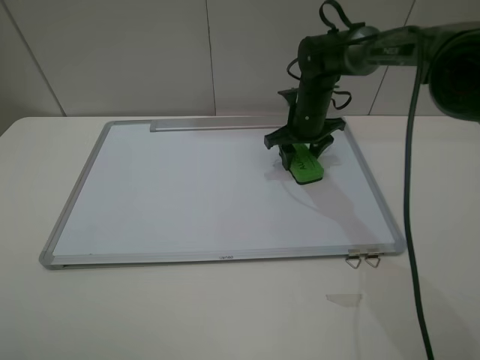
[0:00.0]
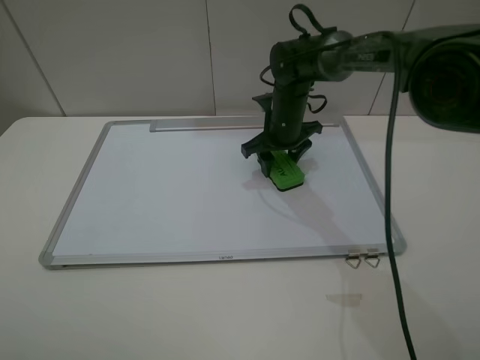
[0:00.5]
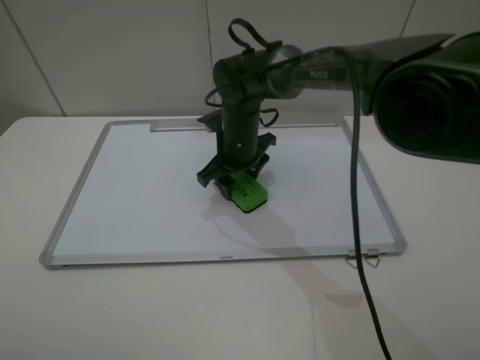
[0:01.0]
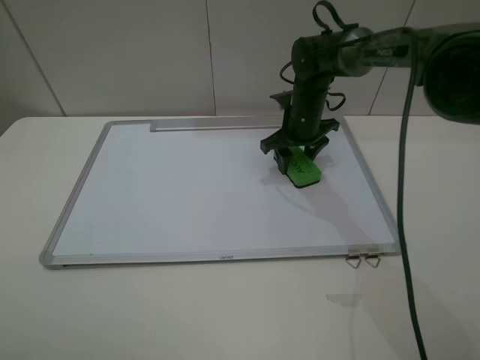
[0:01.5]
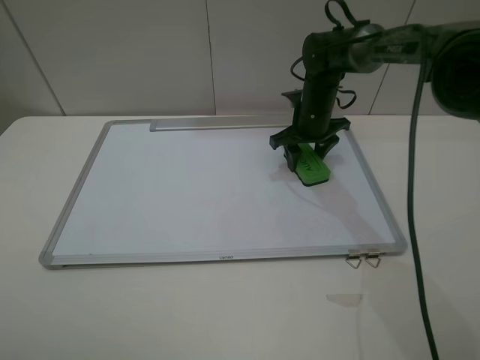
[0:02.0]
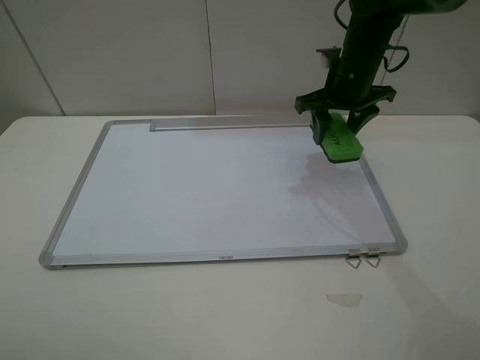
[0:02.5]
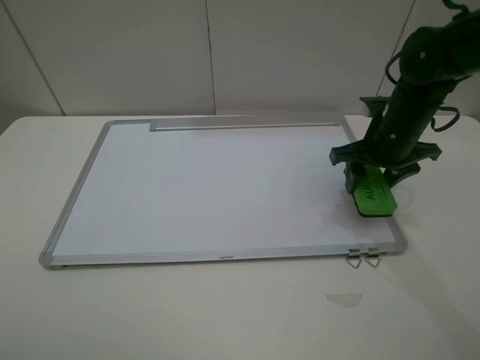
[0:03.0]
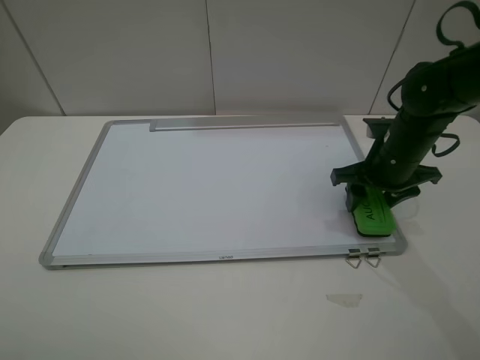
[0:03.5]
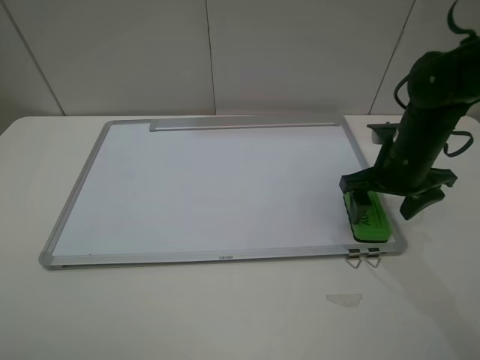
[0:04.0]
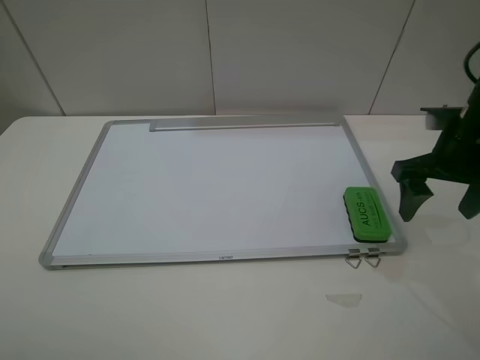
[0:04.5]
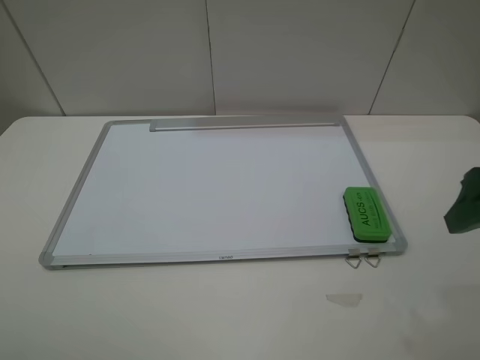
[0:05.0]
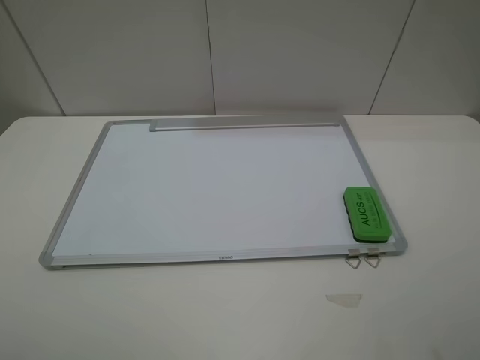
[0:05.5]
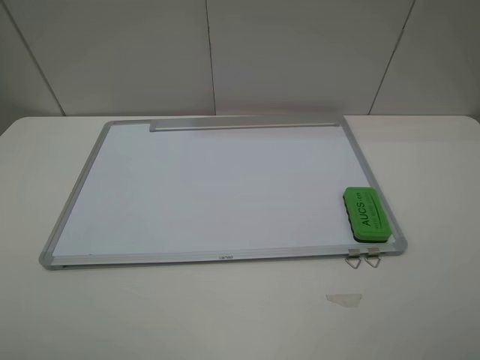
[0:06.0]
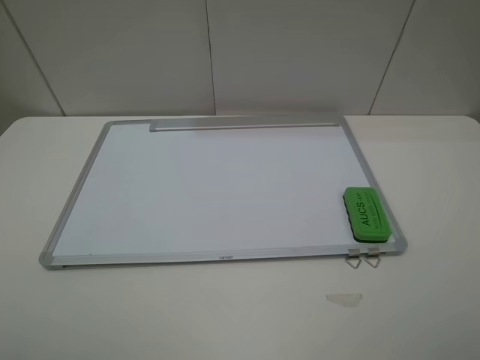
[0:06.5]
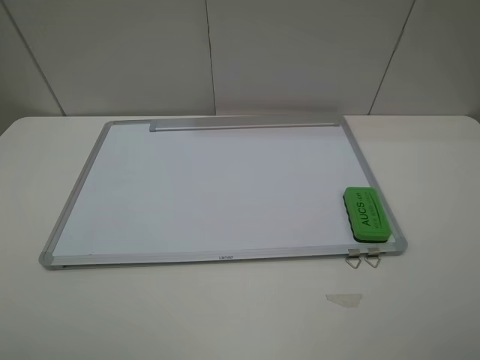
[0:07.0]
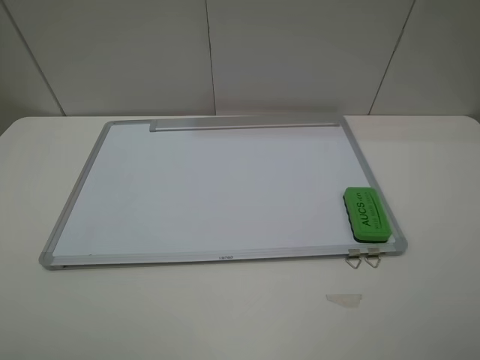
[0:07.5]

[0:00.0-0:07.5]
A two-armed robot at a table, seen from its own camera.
Step, 0:02.0 to 0:04.0: Place the eraser with the right gripper.
0:00.0 to 0:02.0: The right gripper moves roughly 15 cm to the left and comes back.
0:02.0 to 0:04.0: The right gripper moves backward and to the right, roughly 20 cm, and opens its fingers.
0:04.0 to 0:05.5: The right gripper moves backward and upward, some 30 cm.
